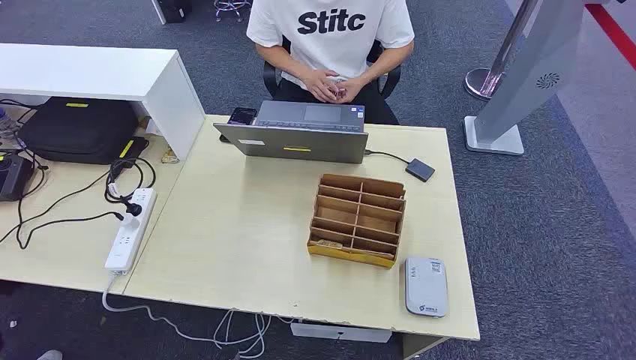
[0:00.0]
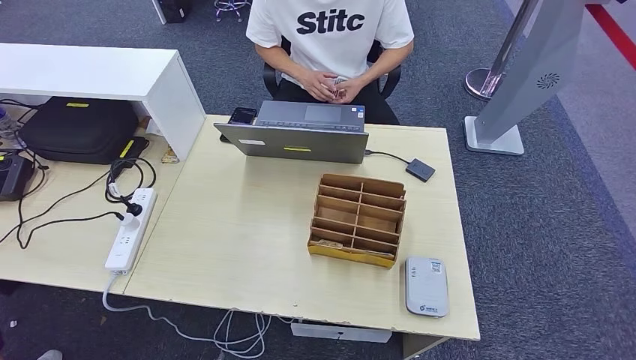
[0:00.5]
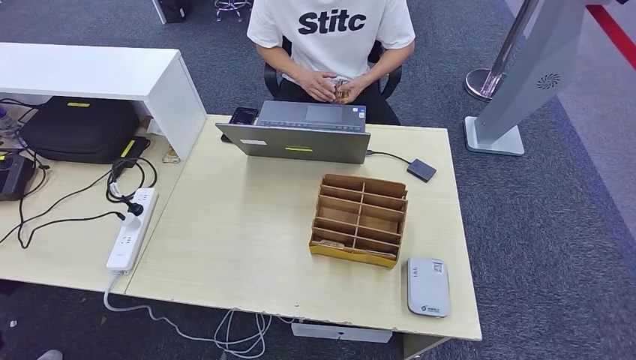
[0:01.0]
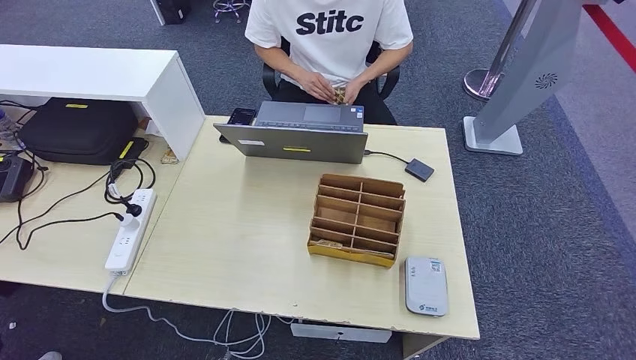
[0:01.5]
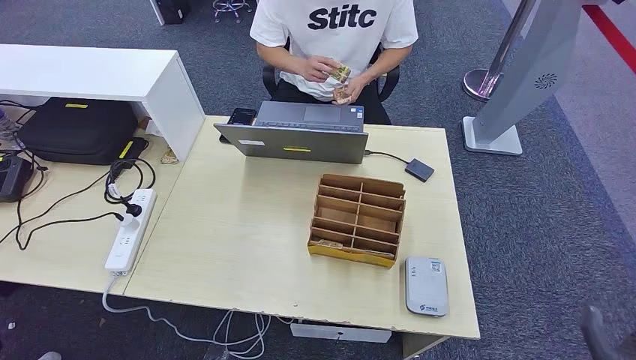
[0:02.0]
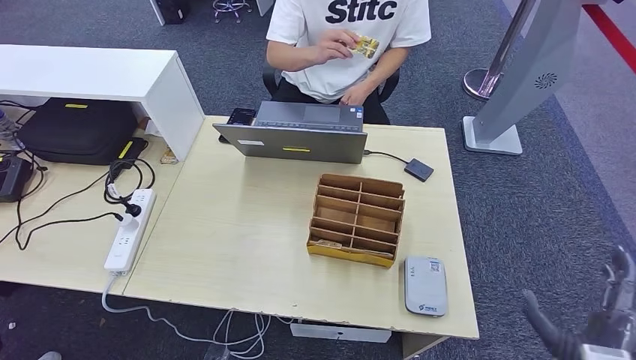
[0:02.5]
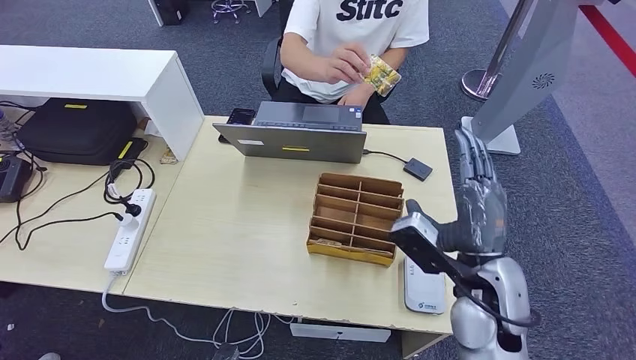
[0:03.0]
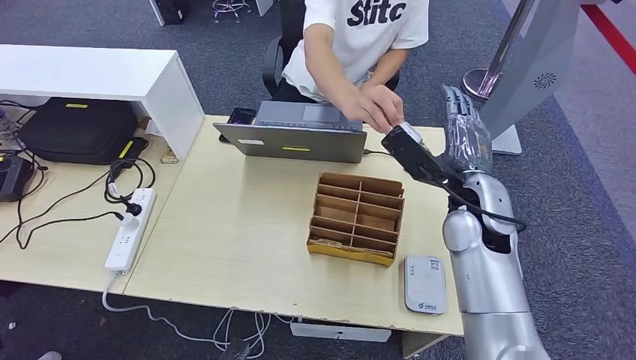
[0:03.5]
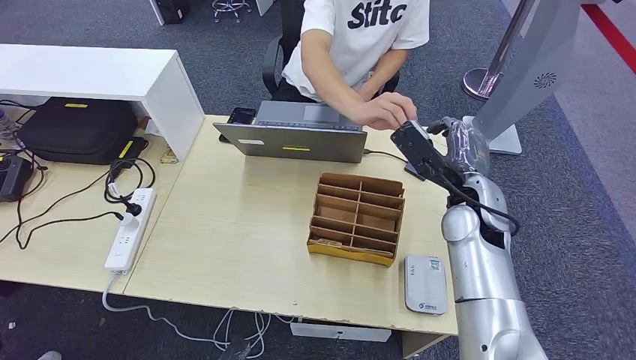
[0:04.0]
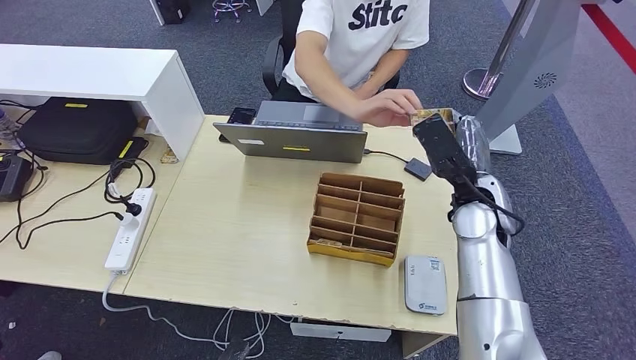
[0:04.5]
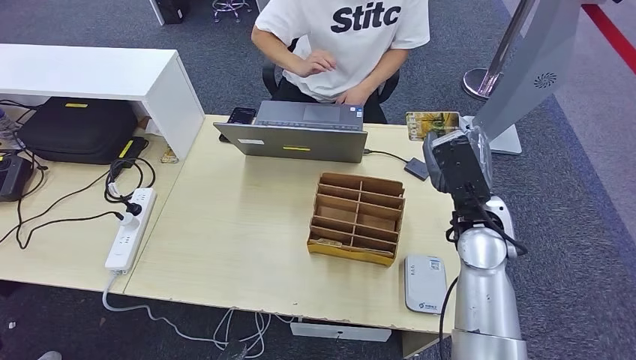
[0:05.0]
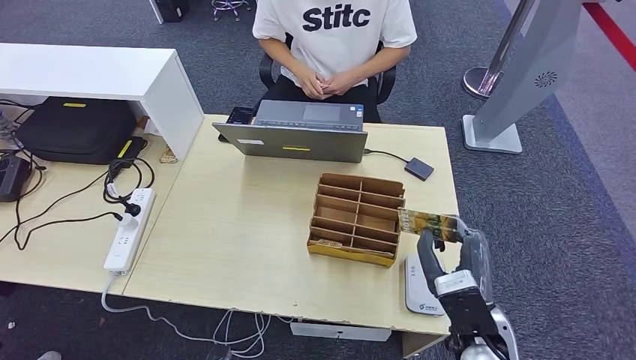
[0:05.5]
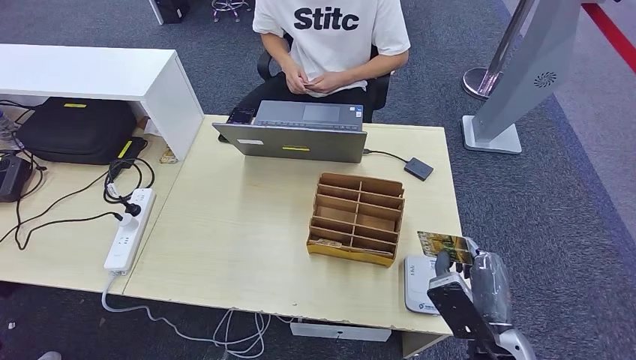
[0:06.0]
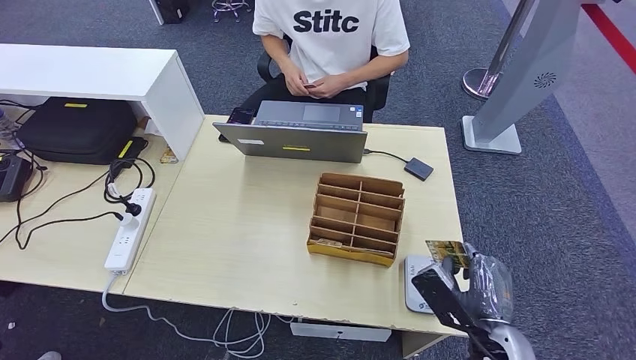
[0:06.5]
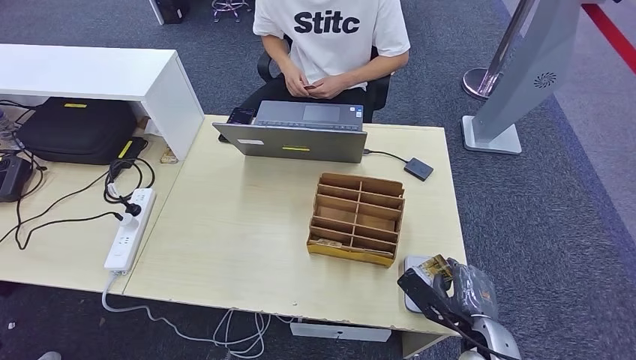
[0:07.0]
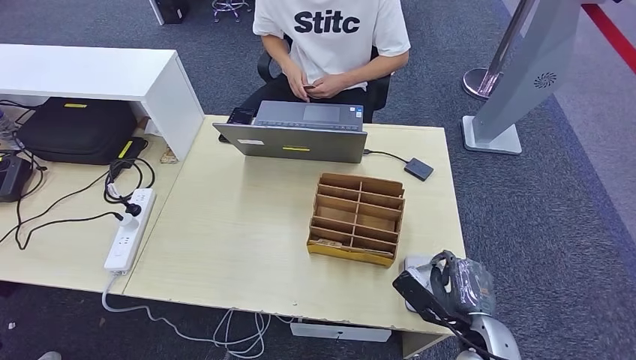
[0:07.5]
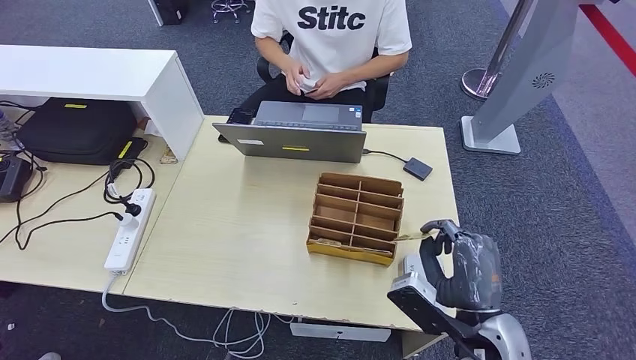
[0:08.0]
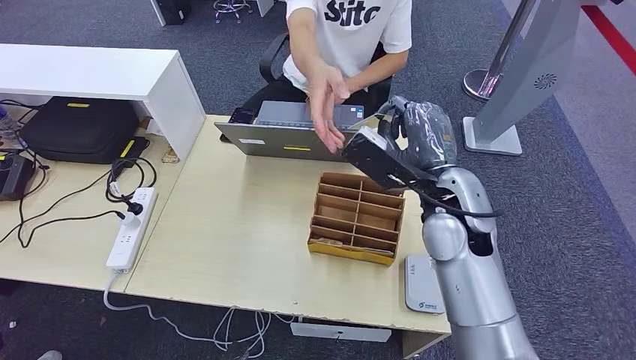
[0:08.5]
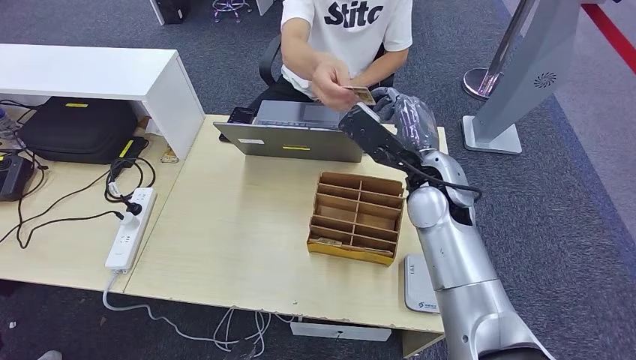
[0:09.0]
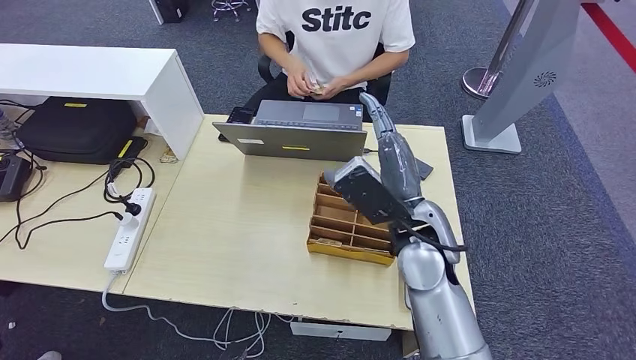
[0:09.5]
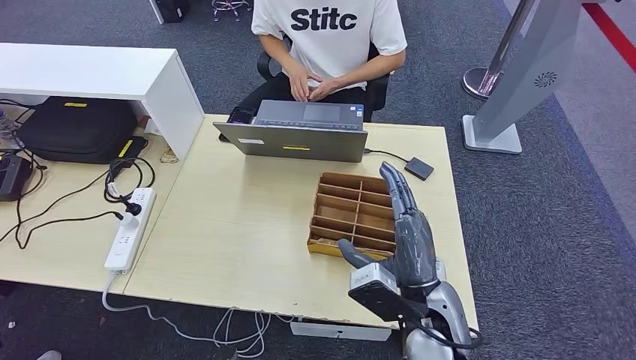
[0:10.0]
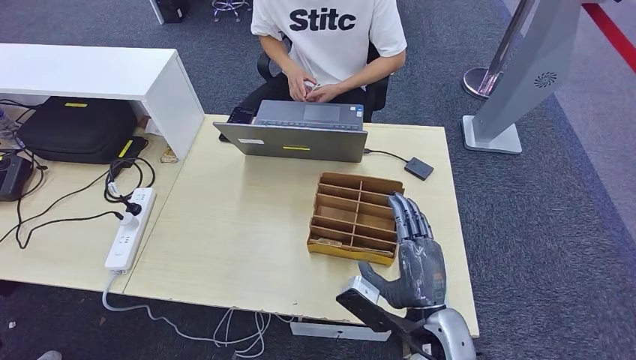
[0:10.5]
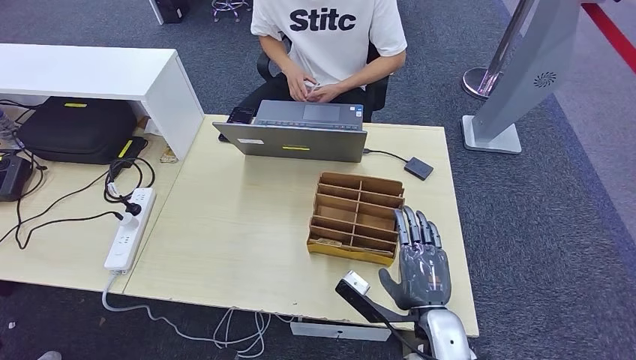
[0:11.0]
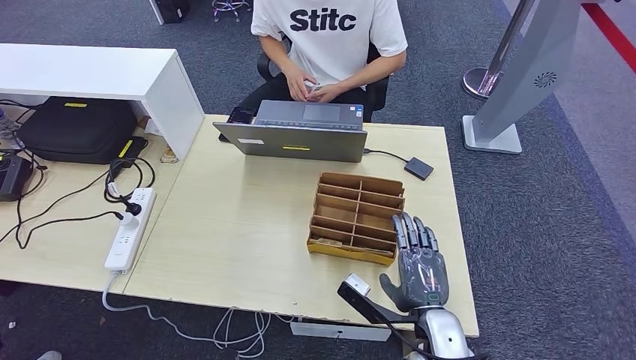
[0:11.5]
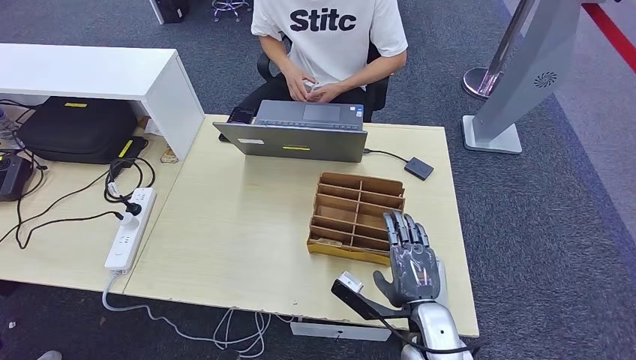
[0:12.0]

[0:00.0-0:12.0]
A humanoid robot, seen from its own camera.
Step, 0:00.0 to 0:04.5: Take the ID card from the person's hand.
Step, 0:05.0 to 0:08.0: Place the ID card on the card reader.
Step, 0:08.5 to 0:10.5: Hand the ID card to the person.
0:02.0 to 0:04.0: The right hand goes some 35 cm forward, to the left and upward.
0:04.0 to 0:06.0: The right hand is displaced backward and downward by approximately 20 cm.
0:08.0 to 0:10.0: The right hand moves to the left, some 10 cm, and moves approximately 20 cm forward and comes back.
0:10.0 to 0:12.0: The right hand shifts some 10 cm downward.

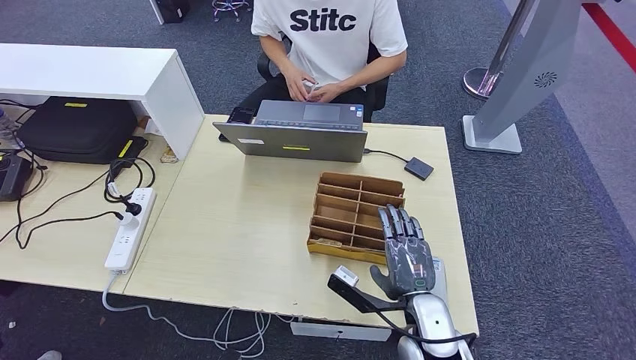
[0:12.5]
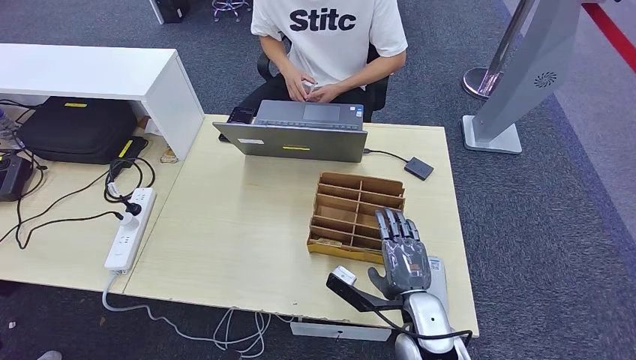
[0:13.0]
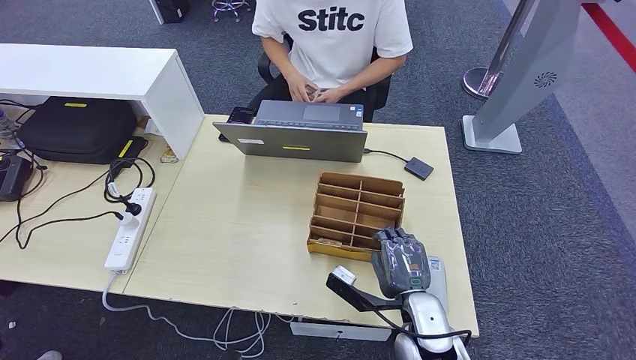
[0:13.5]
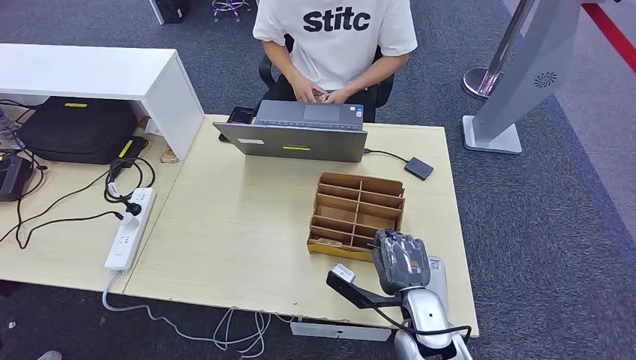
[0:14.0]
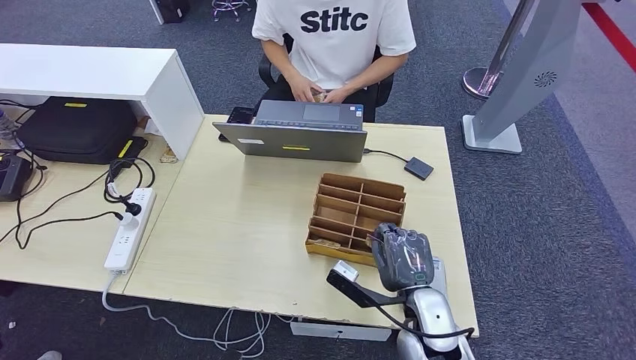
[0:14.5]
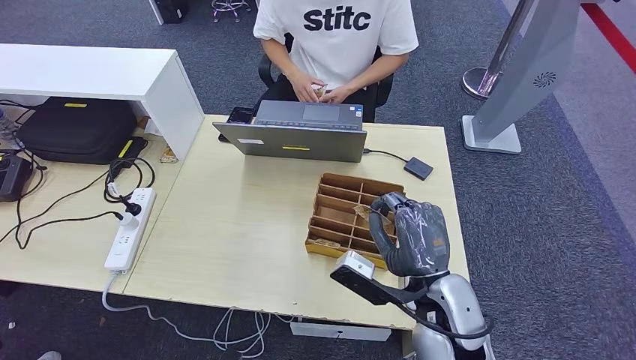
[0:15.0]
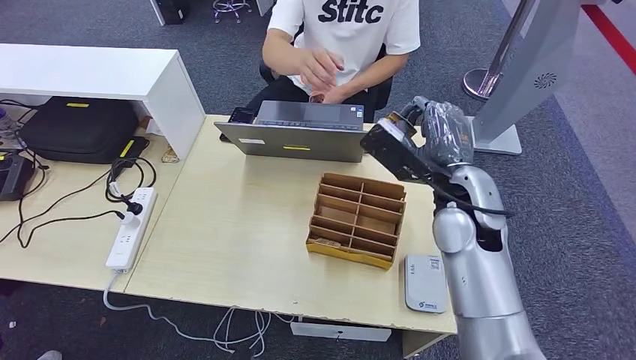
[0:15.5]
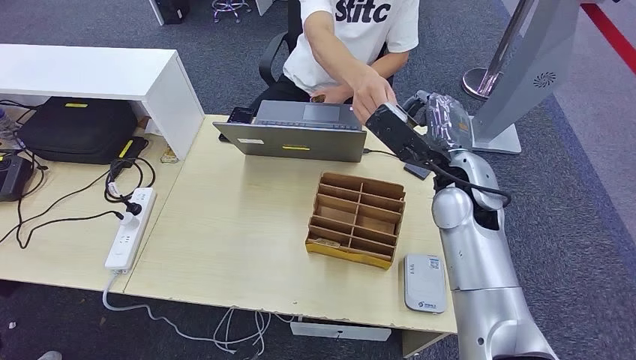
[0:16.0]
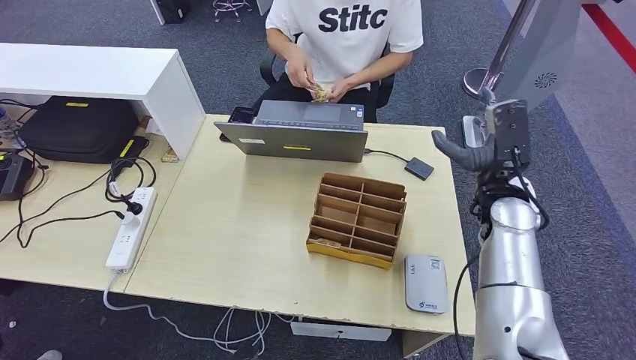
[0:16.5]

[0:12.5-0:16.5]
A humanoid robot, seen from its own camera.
Step, 0:12.5 to 0:14.5: Pick up the room key from the key card box.
Step, 0:15.0 to 0:16.5: Hand the room key to the person.
0:12.5 to 0:14.5: There are only small adjustments of the hands.
0:14.5 to 0:16.5: The right hand moves upward and forward, some 20 cm.
